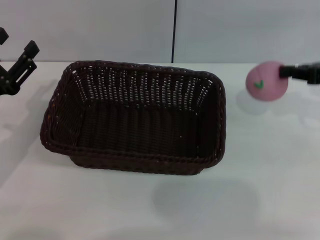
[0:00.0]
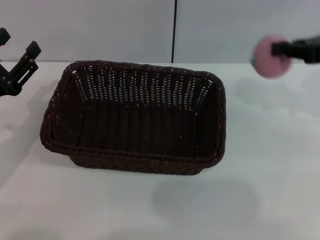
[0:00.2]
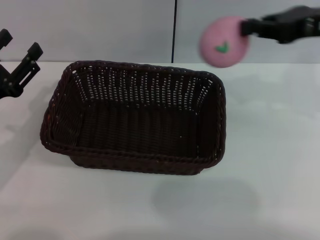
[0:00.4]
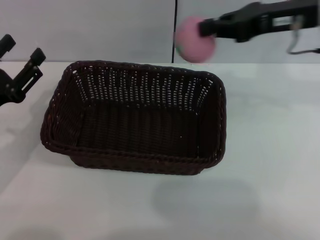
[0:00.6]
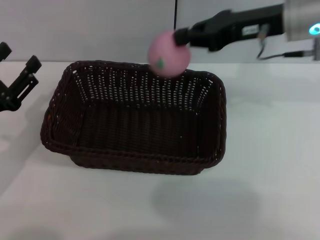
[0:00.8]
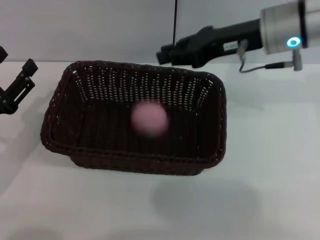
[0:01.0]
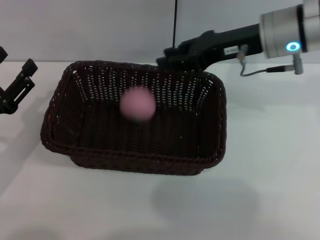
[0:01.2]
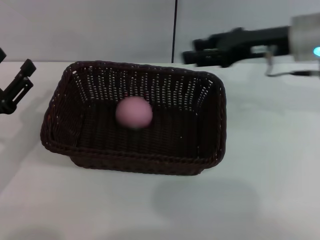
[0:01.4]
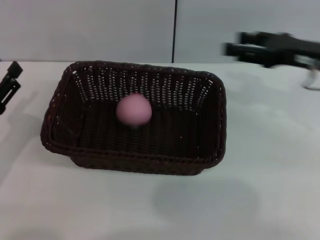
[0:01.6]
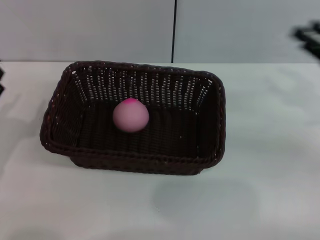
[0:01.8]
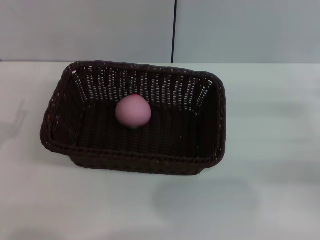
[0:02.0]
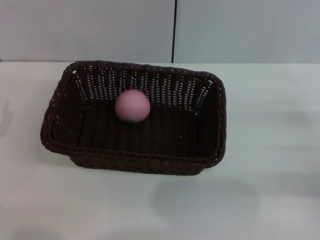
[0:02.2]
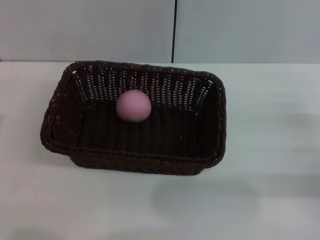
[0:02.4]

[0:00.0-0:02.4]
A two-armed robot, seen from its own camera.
0:00.0 to 0:01.2: The right gripper moves to the left, roughly 15 cm, and opens up.
0:01.2 to 0:02.4: The left gripper ends up about 5 cm from where it was, while the right gripper moves to the right, backward and downward, some 30 cm, and opens its fingers.
